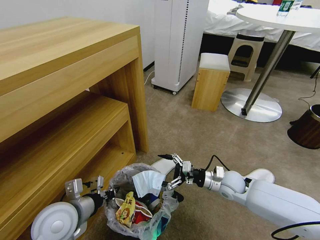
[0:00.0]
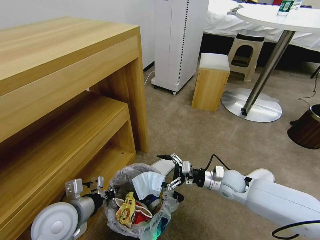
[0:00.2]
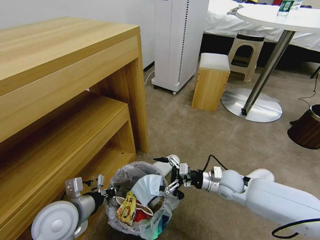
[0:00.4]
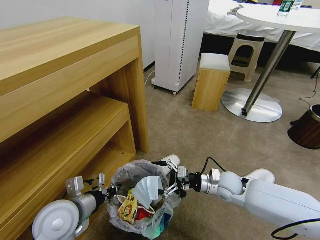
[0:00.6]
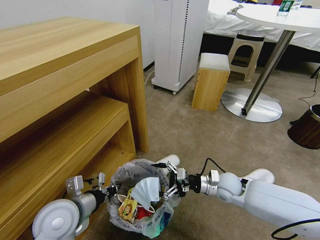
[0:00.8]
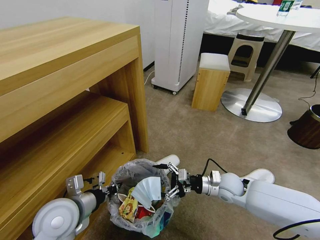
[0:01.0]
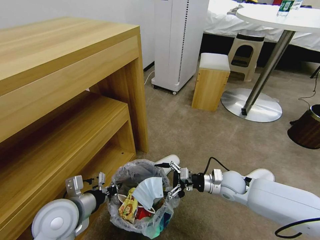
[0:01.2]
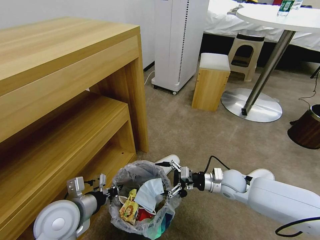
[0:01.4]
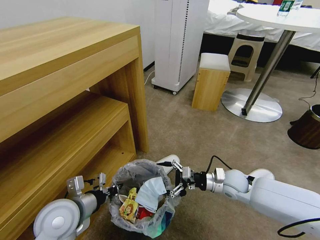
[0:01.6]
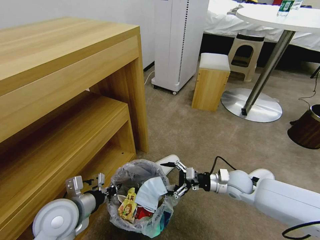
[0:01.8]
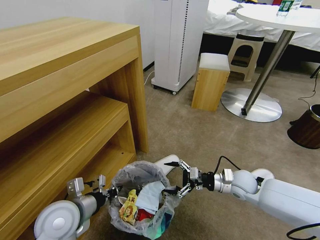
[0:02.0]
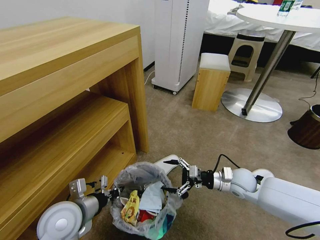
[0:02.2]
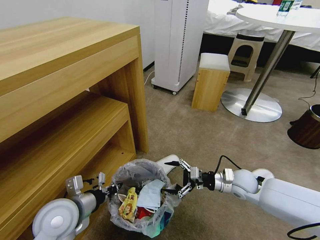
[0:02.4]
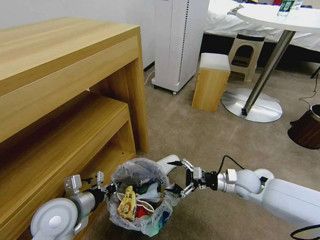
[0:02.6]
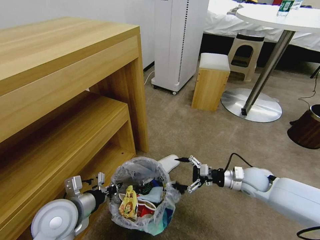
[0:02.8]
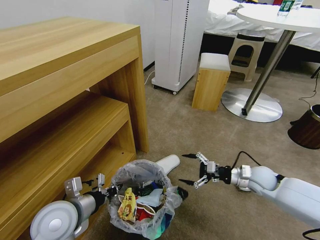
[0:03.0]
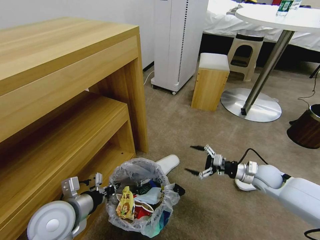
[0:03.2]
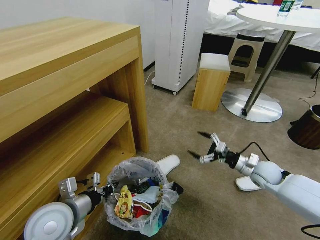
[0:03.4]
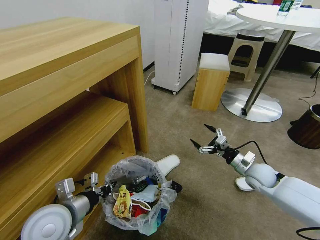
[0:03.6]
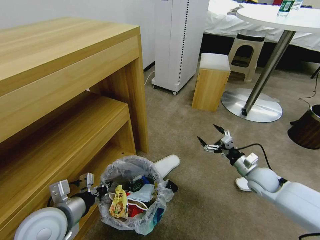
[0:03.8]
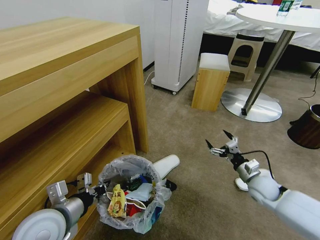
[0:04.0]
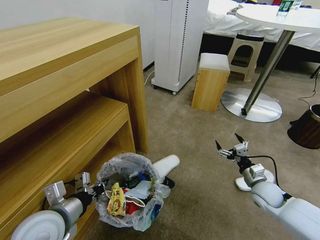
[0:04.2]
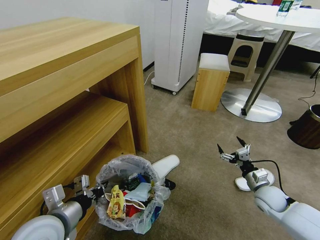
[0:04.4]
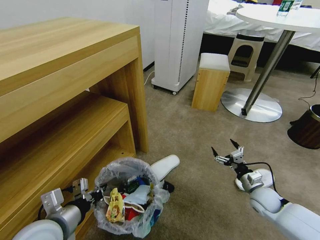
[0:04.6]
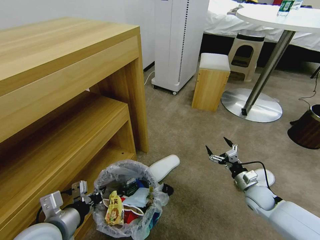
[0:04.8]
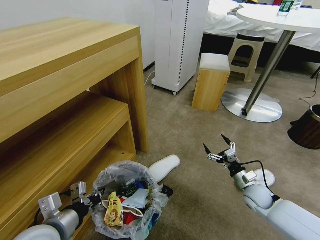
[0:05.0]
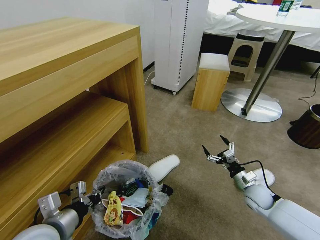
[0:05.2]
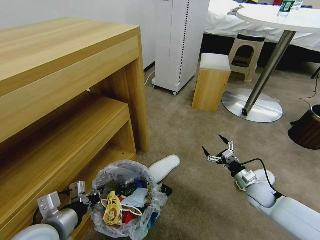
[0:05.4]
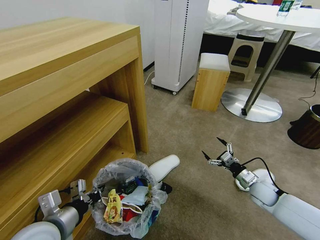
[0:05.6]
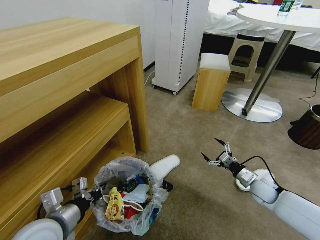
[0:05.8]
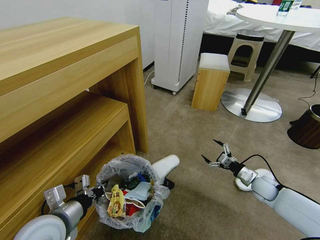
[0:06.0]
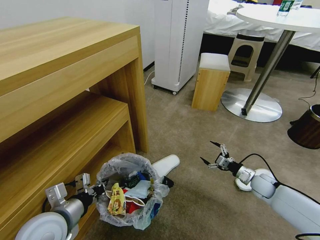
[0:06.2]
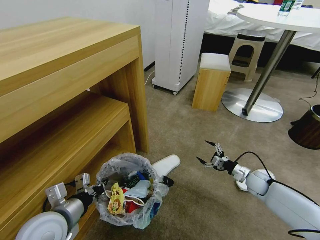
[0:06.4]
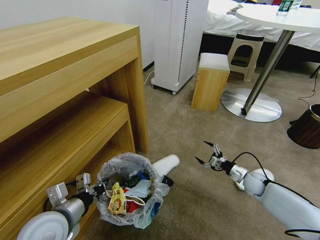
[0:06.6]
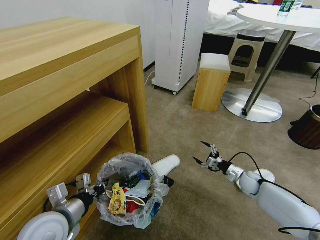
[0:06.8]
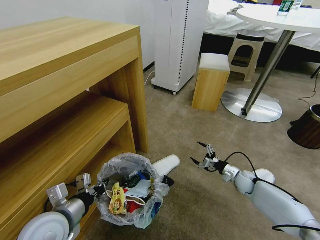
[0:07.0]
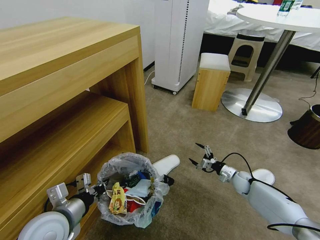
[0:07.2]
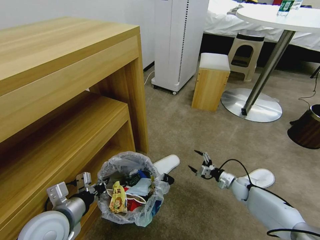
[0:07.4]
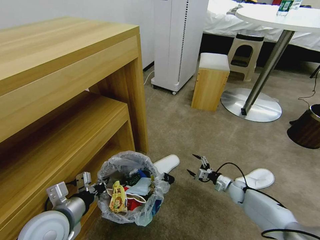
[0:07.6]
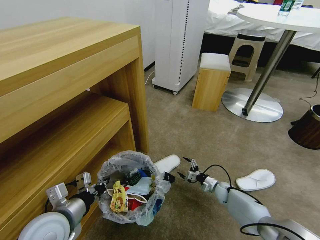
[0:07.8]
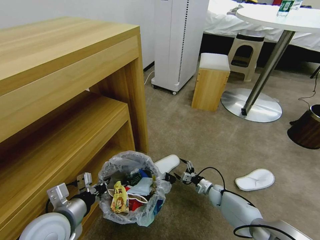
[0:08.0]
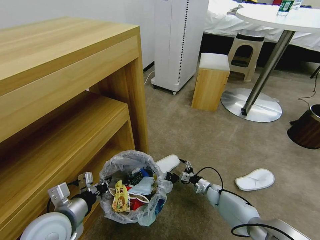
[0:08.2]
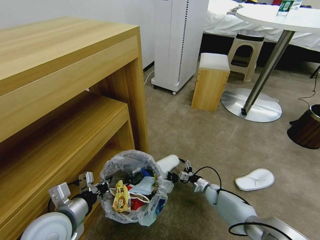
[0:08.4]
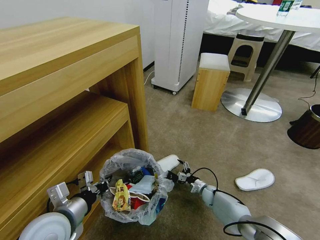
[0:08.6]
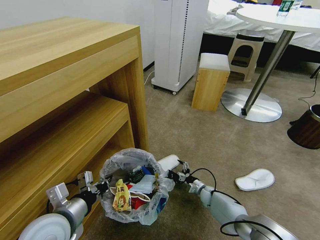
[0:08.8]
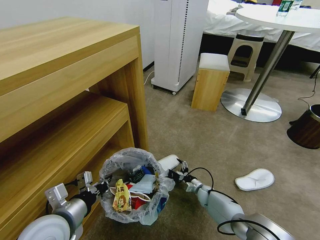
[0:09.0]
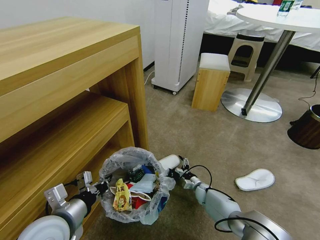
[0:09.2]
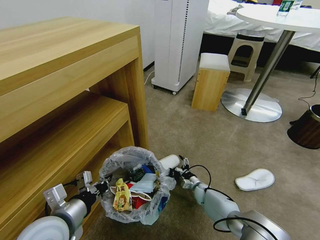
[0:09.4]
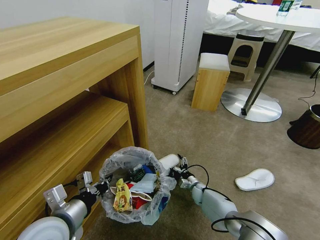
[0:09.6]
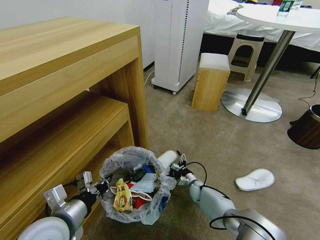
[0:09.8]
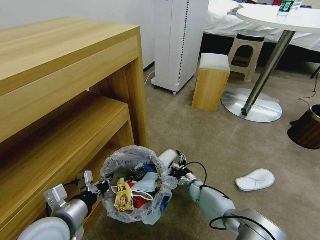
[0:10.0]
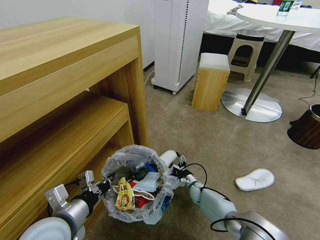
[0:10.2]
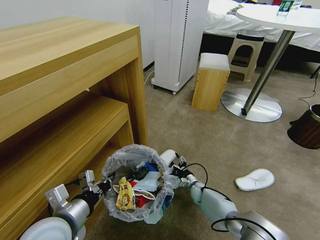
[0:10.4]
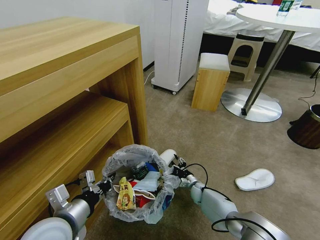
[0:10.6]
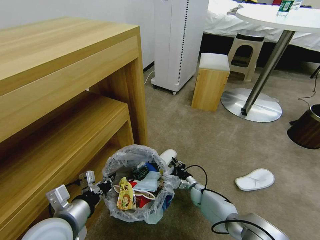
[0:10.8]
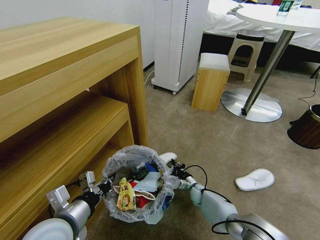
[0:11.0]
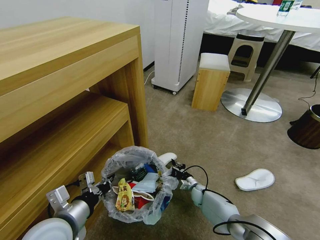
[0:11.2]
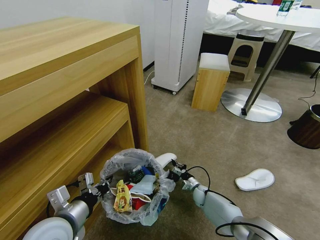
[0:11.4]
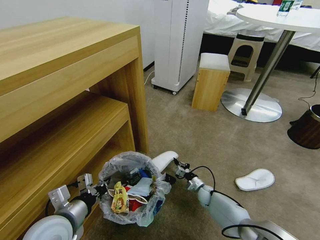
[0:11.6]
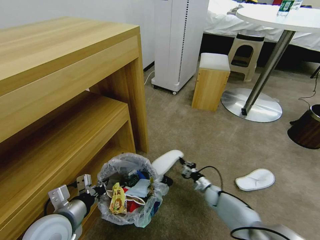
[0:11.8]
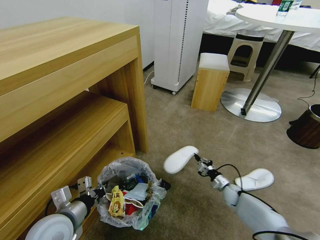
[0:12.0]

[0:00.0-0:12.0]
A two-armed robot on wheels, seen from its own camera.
Task of the whole recording: Pick up the trash bin and place the garbage on the floor into it.
0:00.0 to 0:01.6: The grippers move only a little.
0:01.6 to 0:03.0: The right gripper goes roughly 10 cm to the right.
0:03.0 to 0:04.4: The right gripper heads downward, covering roughly 5 cm.
0:04.4 to 0:06.0: The right gripper is displaced forward by roughly 5 cm.
0:06.0 to 0:07.6: The right gripper moves downward and to the left, some 15 cm.
0:07.6 to 0:09.0: The right gripper goes about 15 cm to the left and downward.
0:09.0 to 0:10.4: There are only small adjustments of the grippers.
0:10.4 to 0:12.0: The left gripper shifts by roughly 5 cm. The right gripper is displaced to the right by approximately 10 cm, and closes up.

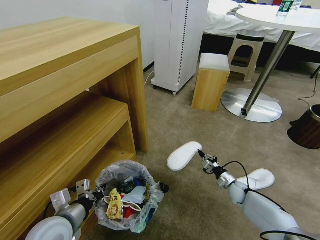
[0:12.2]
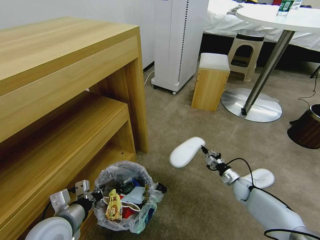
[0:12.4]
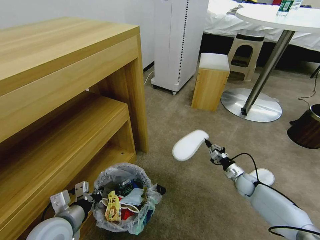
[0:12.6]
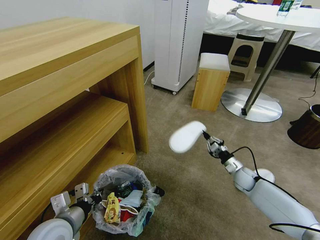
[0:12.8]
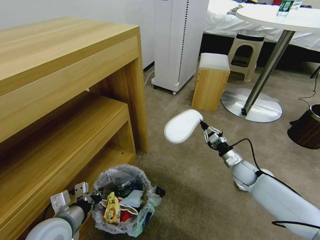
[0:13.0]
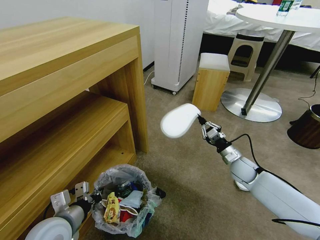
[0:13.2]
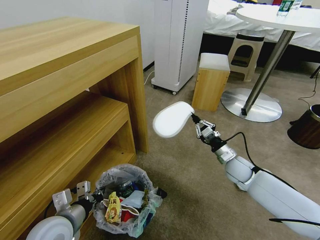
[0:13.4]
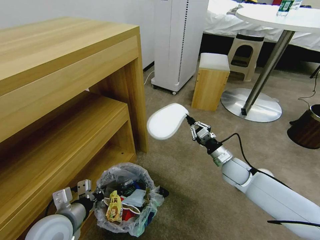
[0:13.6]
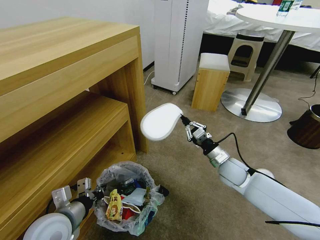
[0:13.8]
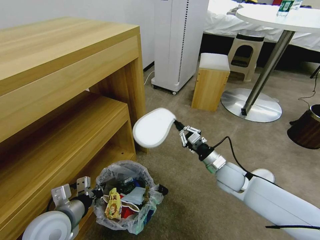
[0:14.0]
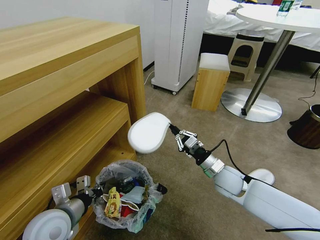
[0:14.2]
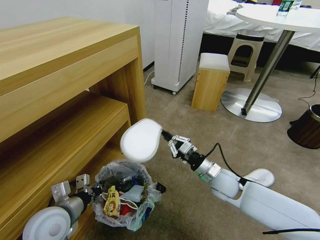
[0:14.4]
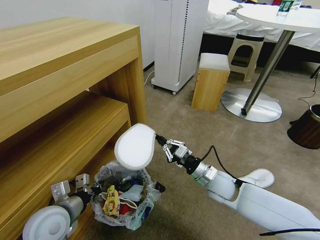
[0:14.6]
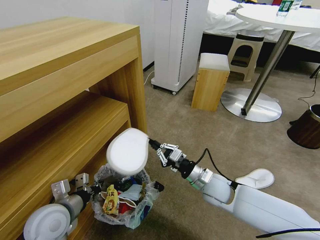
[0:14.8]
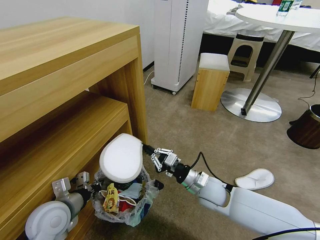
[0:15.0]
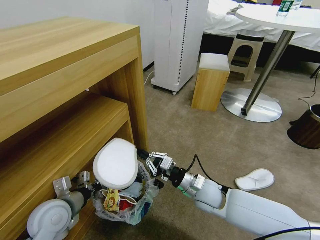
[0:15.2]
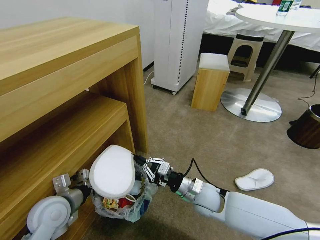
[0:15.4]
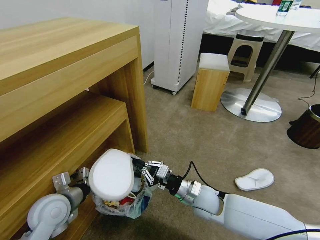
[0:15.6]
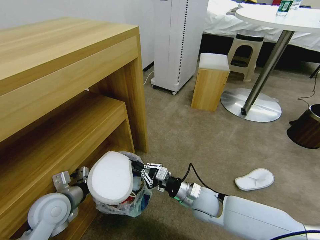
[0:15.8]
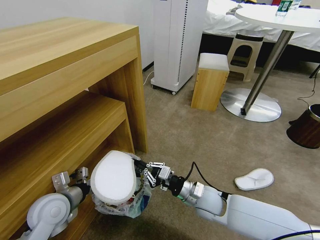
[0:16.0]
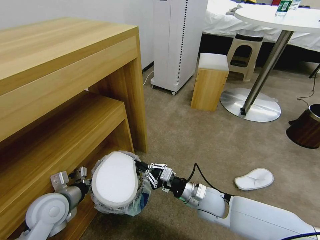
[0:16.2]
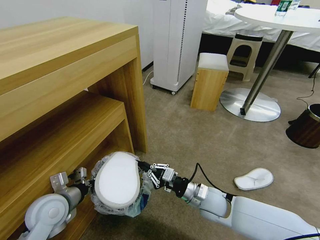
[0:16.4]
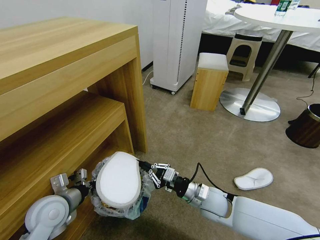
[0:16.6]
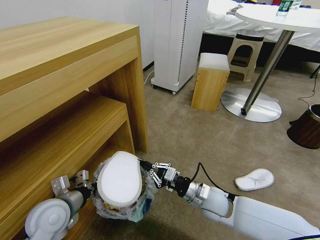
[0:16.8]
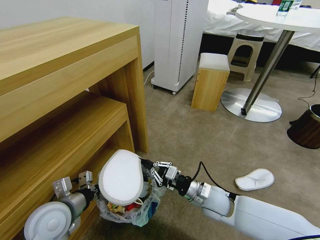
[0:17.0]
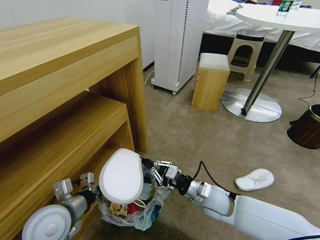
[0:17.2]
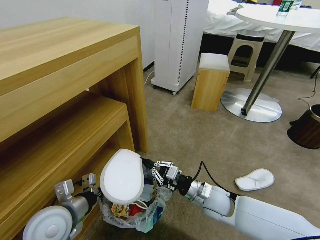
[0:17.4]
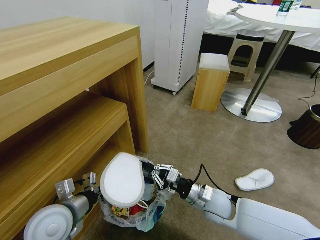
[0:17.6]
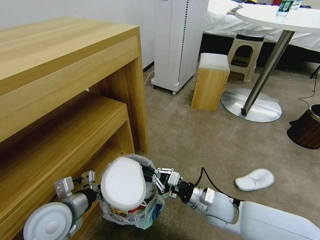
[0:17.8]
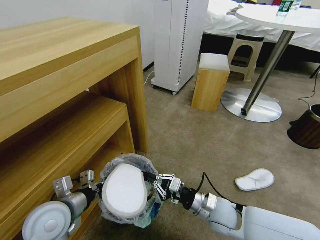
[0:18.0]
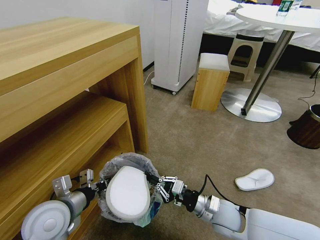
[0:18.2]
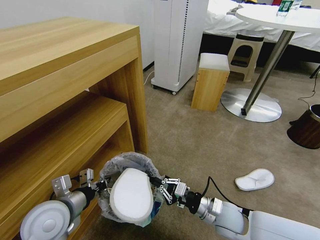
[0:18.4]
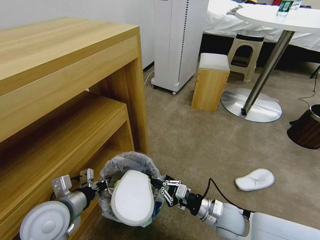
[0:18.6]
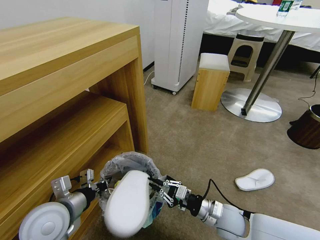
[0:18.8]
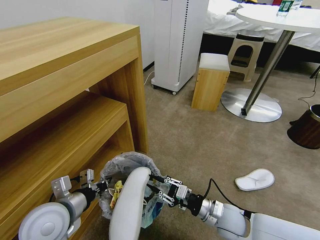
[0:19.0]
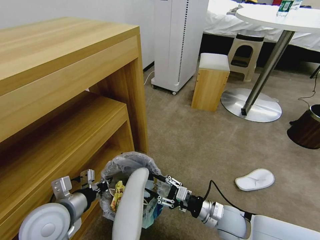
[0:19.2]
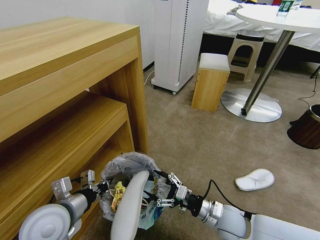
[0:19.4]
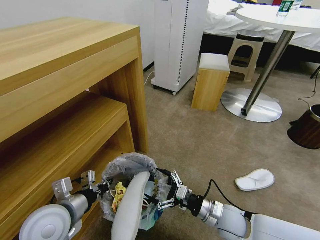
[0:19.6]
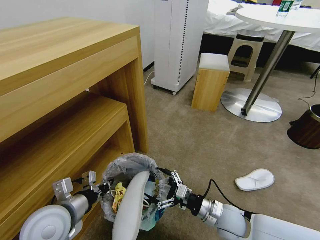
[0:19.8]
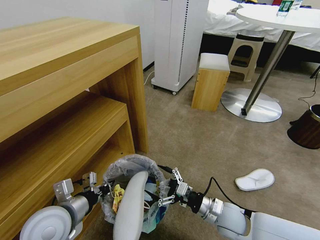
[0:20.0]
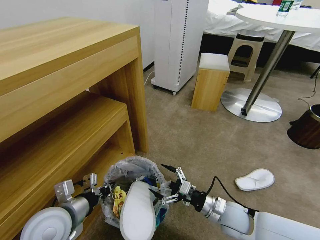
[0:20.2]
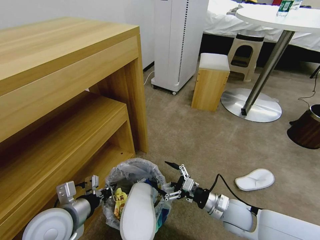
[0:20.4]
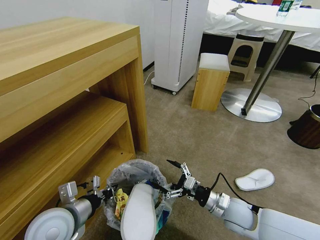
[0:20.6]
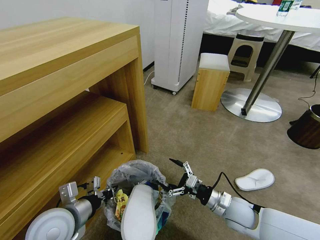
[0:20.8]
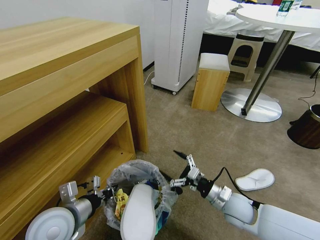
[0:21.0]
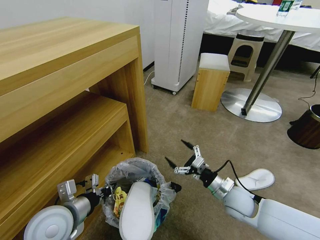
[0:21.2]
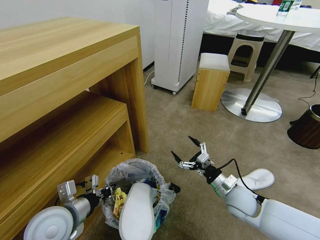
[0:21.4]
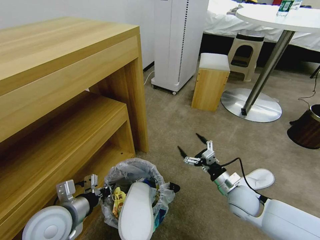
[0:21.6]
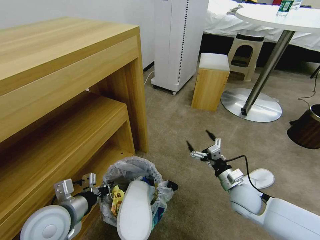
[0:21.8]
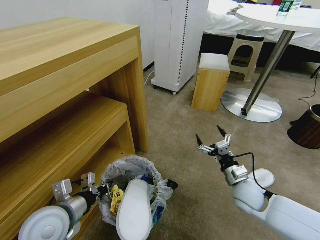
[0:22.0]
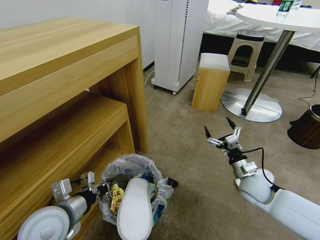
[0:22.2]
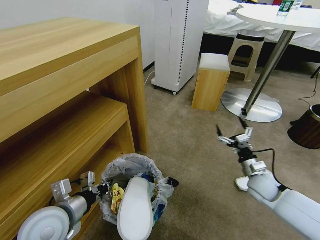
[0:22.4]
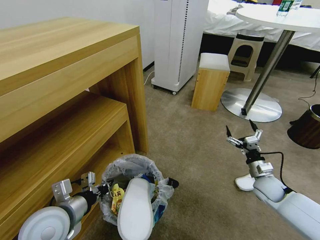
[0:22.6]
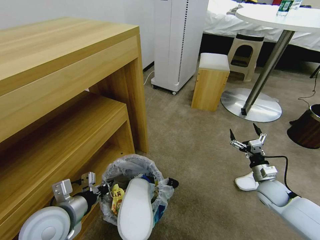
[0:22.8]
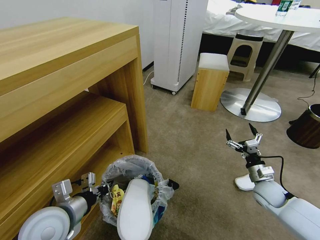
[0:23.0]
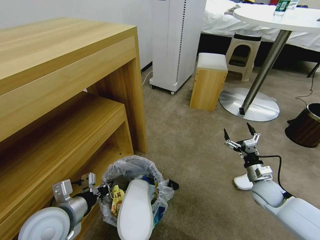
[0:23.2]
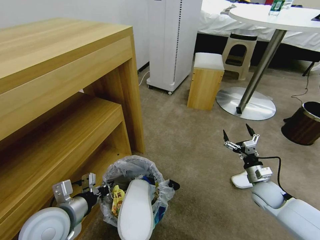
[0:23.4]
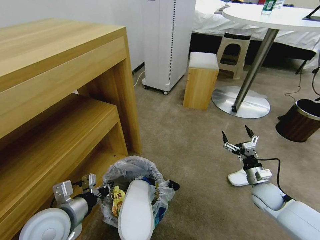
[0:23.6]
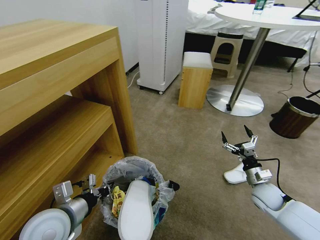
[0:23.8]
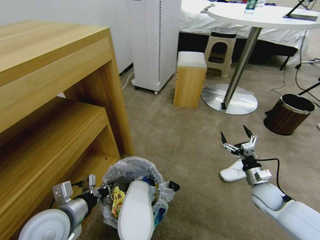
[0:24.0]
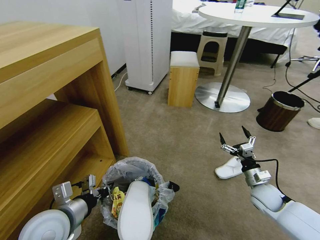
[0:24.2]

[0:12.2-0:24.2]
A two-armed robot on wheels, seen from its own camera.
Task of the whole recording: Pick up the trash bin and place the garbage on the floor into it.
0:12.2 to 0:13.8: The right gripper moves upward and to the left, some 25 cm.
0:13.8 to 0:15.2: The right gripper heads to the left and backward, covering roughly 15 cm.
0:15.2 to 0:16.6: The grippers move only a little.
0:16.6 to 0:18.2: The left gripper shifts by about 5 cm.
0:18.2 to 0:19.8: The right gripper opens up.
0:19.8 to 0:21.2: The right gripper travels forward by roughly 5 cm.
0:21.2 to 0:22.6: The right gripper heads to the right, covering roughly 15 cm.
